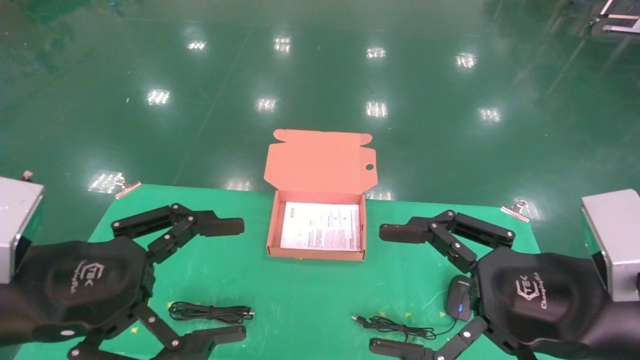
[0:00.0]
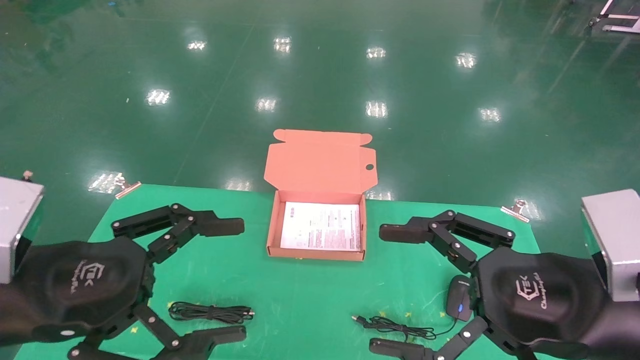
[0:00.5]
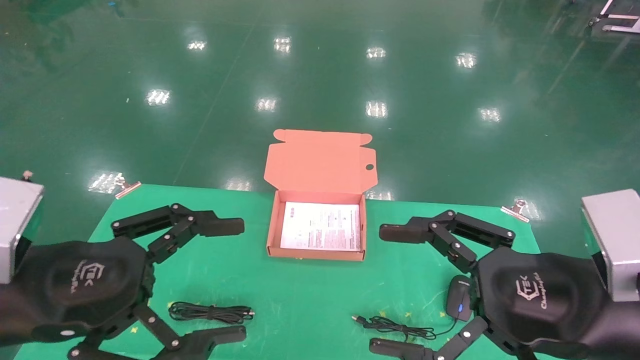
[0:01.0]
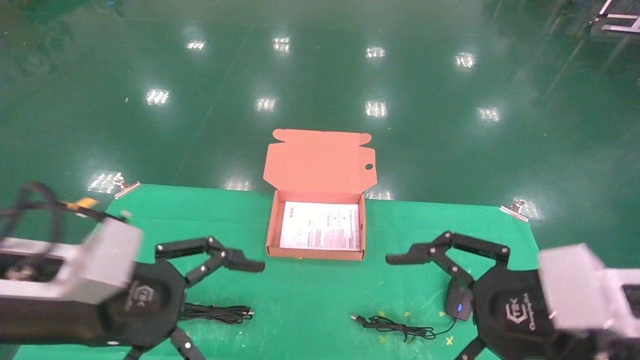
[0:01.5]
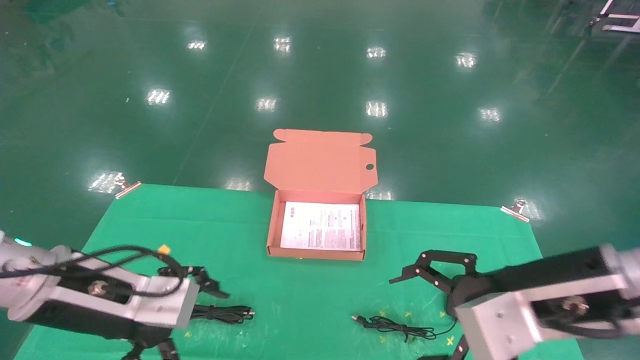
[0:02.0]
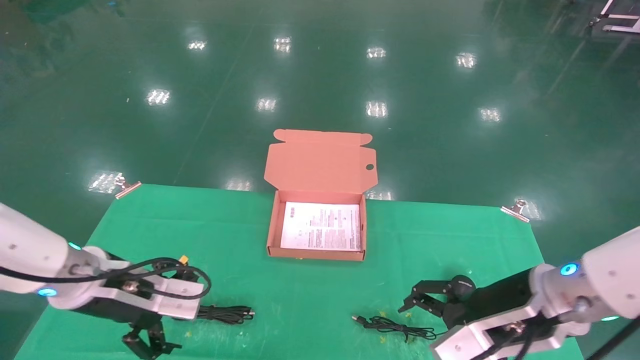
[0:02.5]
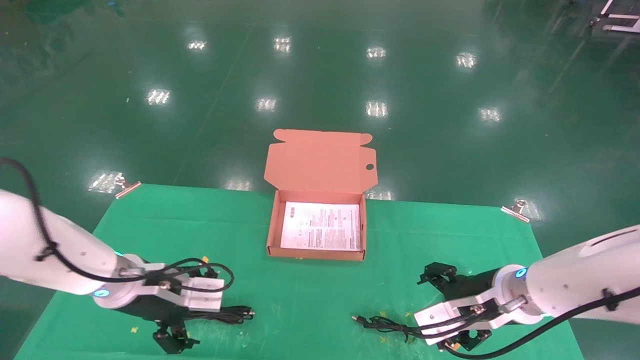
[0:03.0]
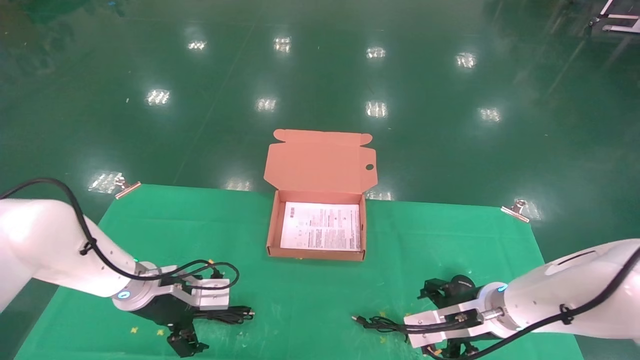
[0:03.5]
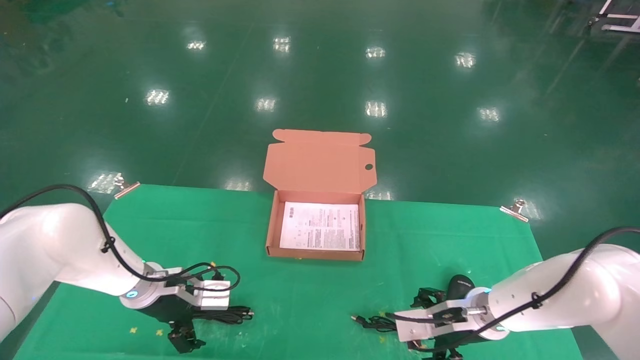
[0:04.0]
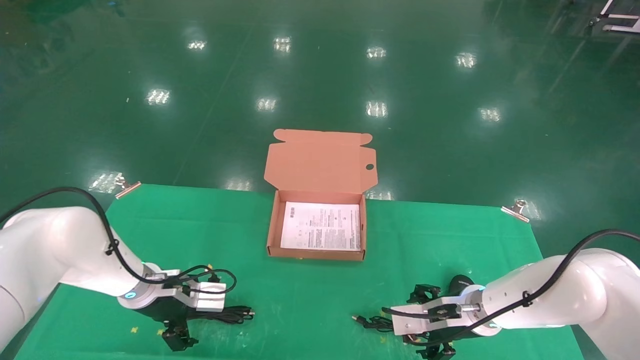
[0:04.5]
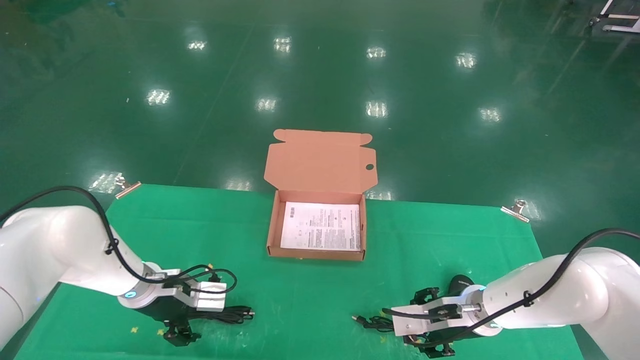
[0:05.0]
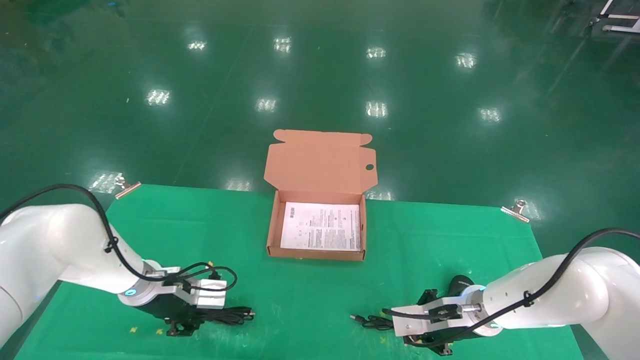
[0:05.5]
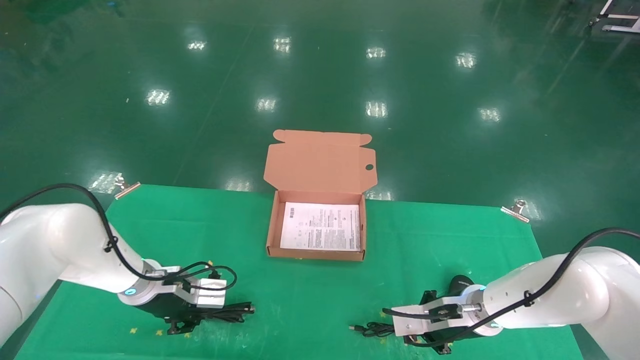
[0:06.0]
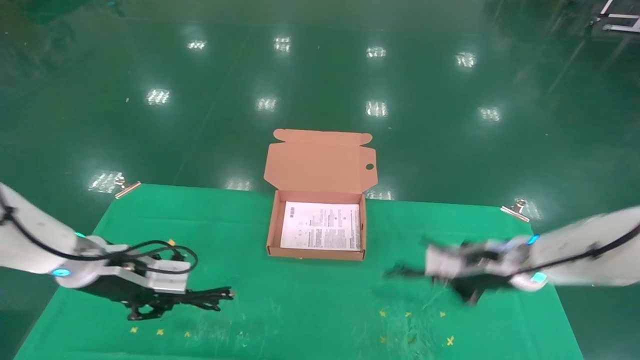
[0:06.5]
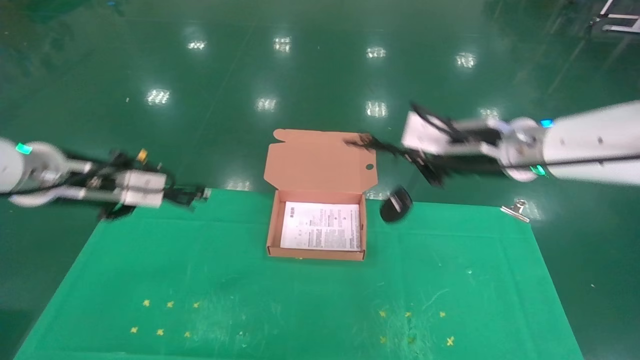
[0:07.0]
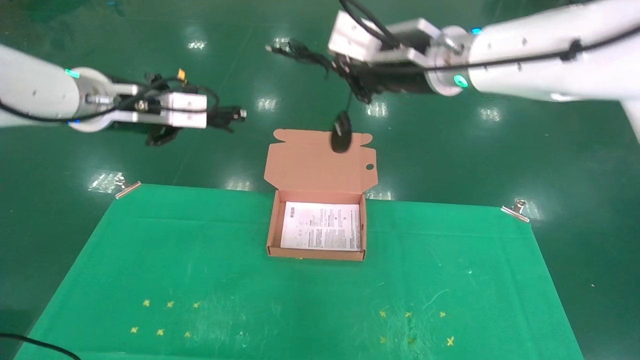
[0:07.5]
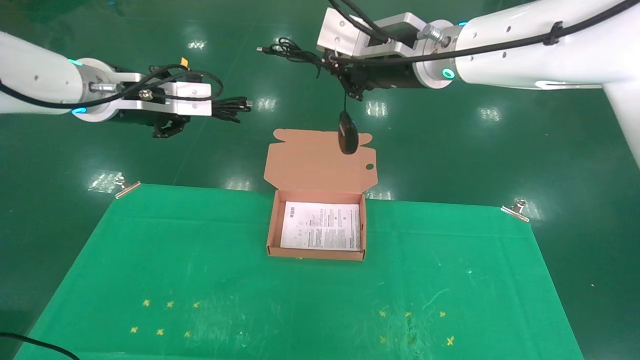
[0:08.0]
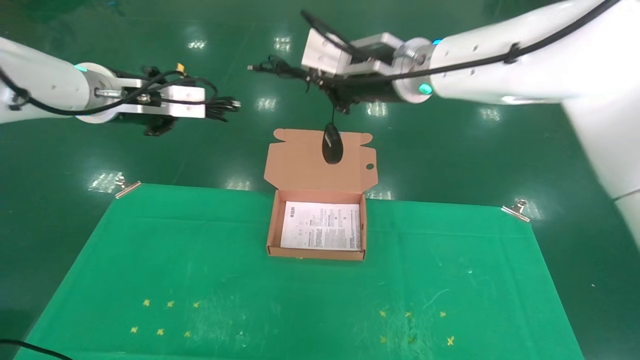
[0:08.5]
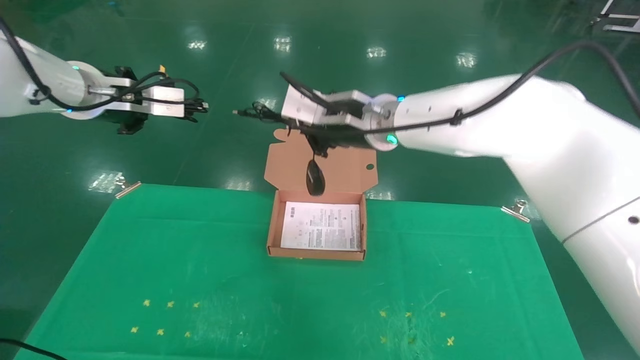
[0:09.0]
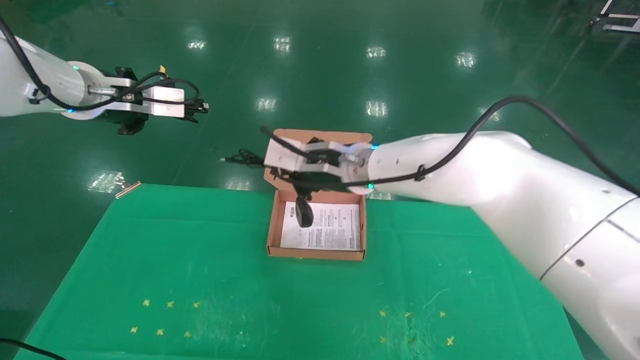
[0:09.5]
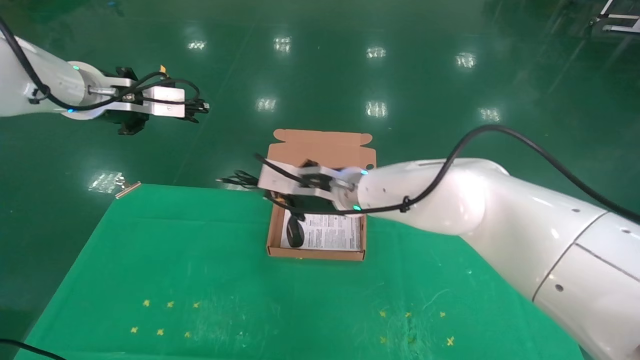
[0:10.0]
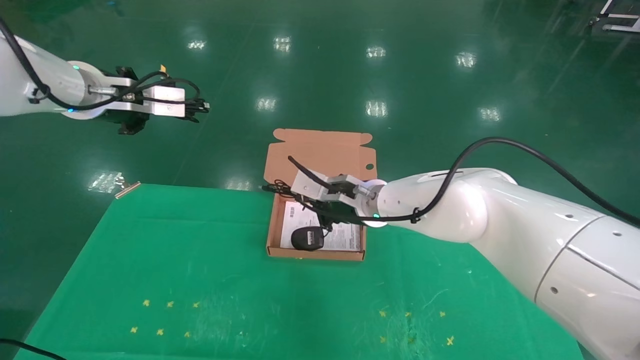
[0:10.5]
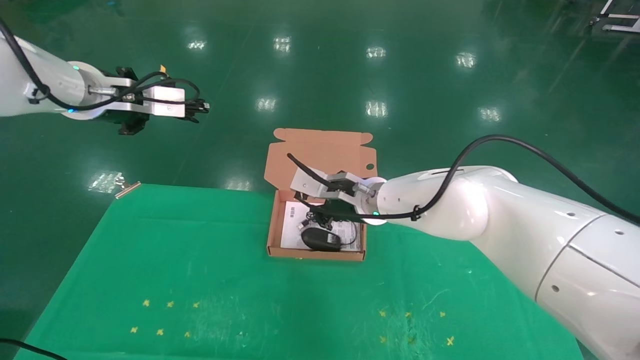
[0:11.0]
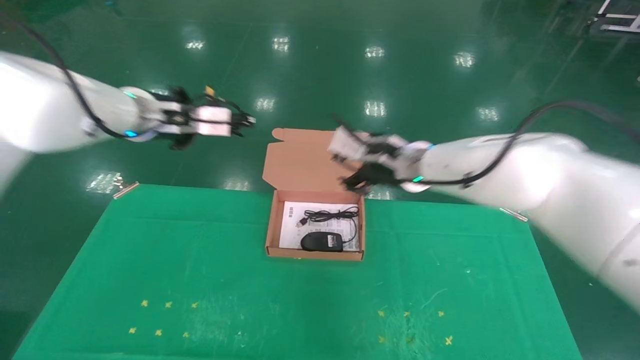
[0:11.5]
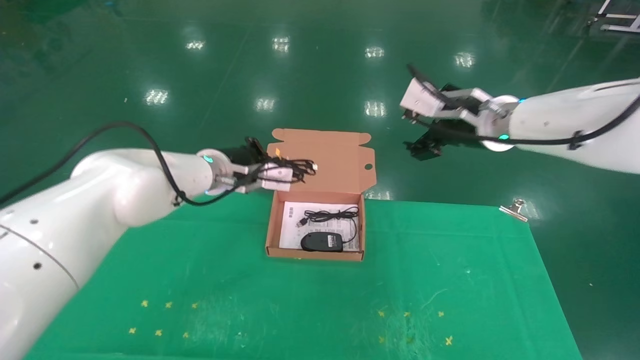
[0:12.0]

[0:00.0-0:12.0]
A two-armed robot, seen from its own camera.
Task of the whole recording: grasp data cable left put into box grasp mouse right put into box.
Step, 0:01.5 to 0:06.5: Grab and pick up both the mouse and power cord from the accessory packaging area at the same time.
0:00.0 to 0:02.0: The left gripper shifts roughly 5 cm forward; the right gripper ends up approximately 5 cm from where it was.
0:02.0 to 0:04.0: The grippers both shift forward and downward by about 20 cm.
0:04.0 to 0:06.0: The right gripper closes, while the left gripper closes its fingers.
0:06.0 to 0:08.0: The two grippers go approximately 35 cm upward.
0:08.0 to 0:10.0: The right gripper moves downward, approximately 20 cm; the left gripper ends up about 5 cm from where it was.
0:10.0 to 0:12.0: The right gripper moves to the right and upward, approximately 20 cm, and opens its fingers, while the left gripper moves to the right, downward and forward, some 20 cm.

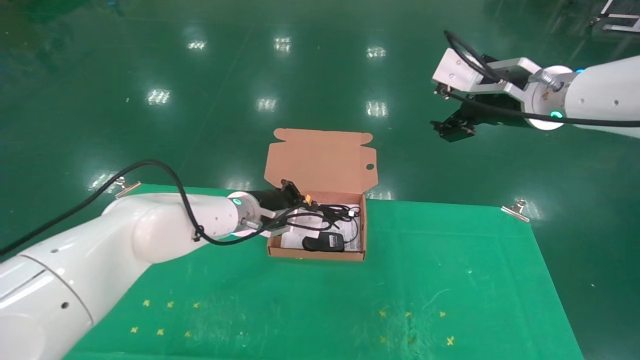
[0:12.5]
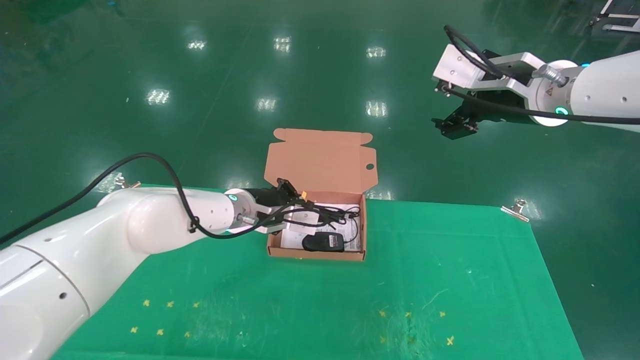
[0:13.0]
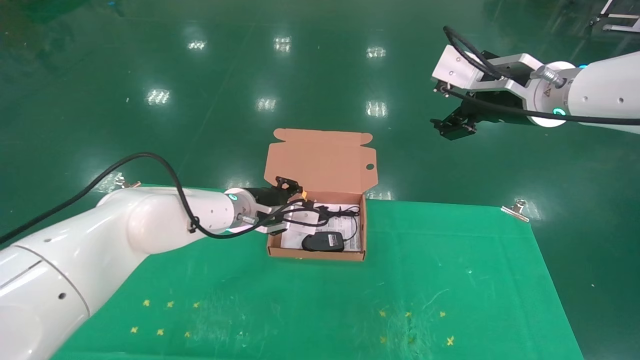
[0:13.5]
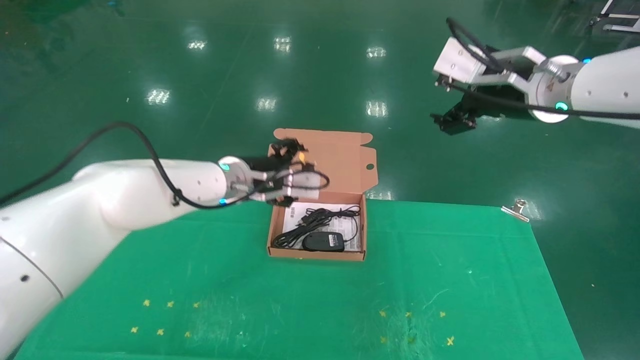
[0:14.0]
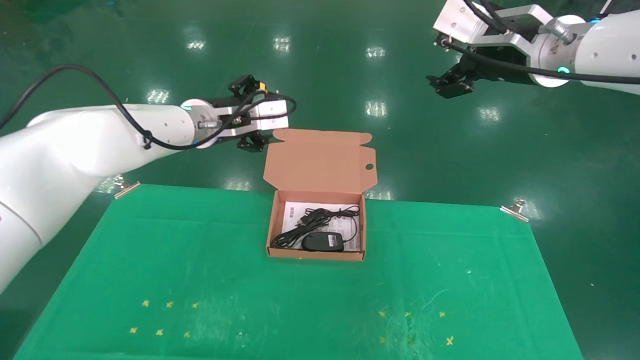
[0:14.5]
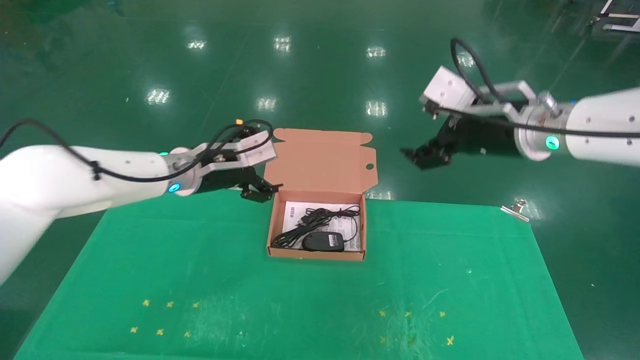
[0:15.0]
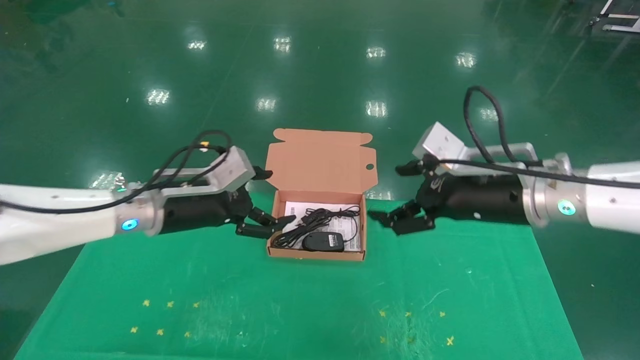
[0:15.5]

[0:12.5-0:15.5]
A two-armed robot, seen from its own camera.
Task of the whole recording: grasp data cable left put into box grasp mouse right put into box.
0:12.5 to 0:14.0: The left gripper opens its fingers.
0:14.0 to 0:15.5: The left gripper goes some 15 cm to the left and backward; the right gripper heads downward, covering roughly 10 cm.
